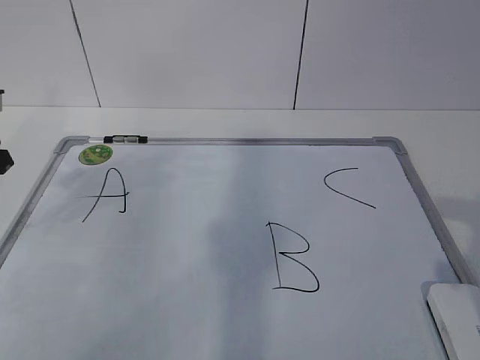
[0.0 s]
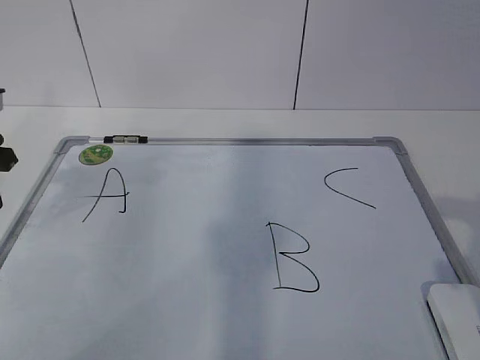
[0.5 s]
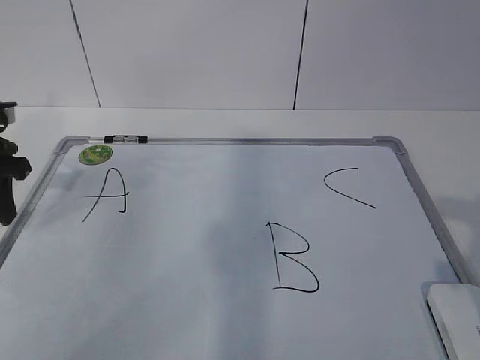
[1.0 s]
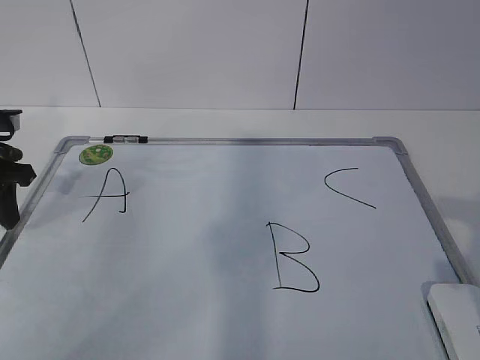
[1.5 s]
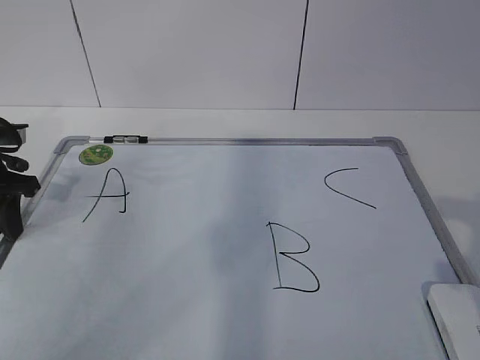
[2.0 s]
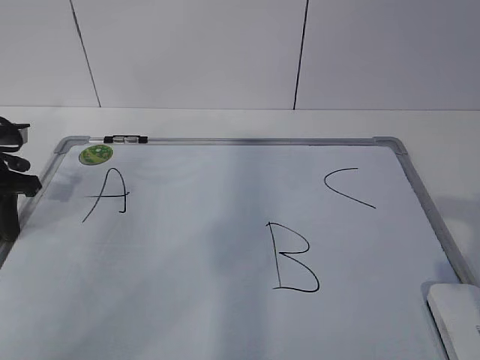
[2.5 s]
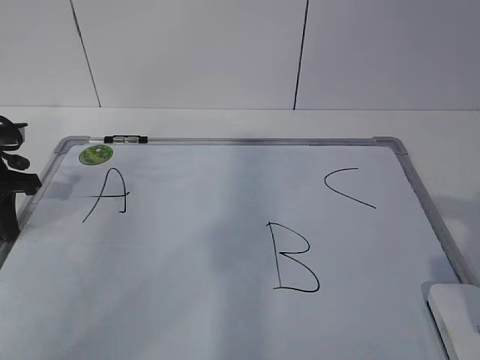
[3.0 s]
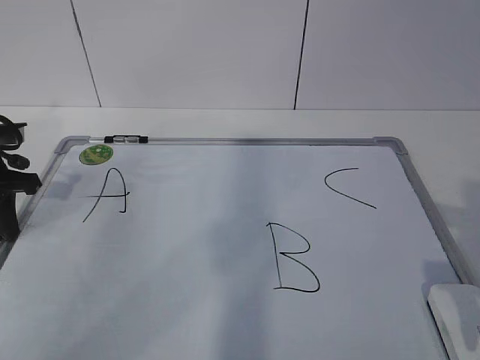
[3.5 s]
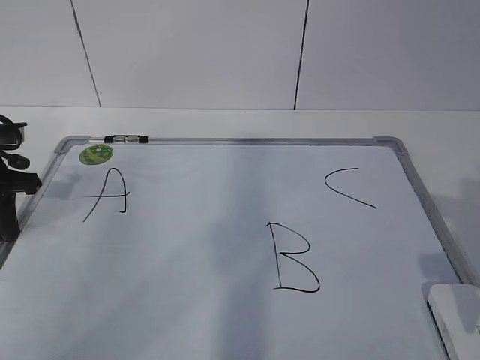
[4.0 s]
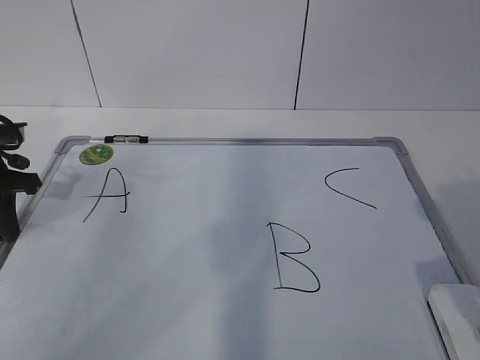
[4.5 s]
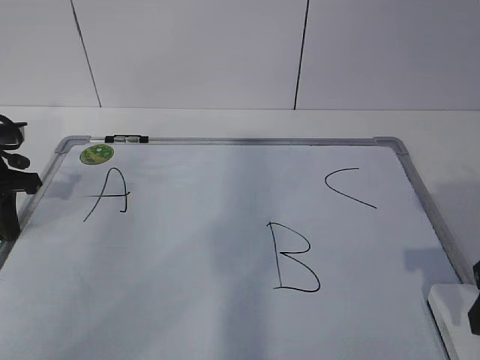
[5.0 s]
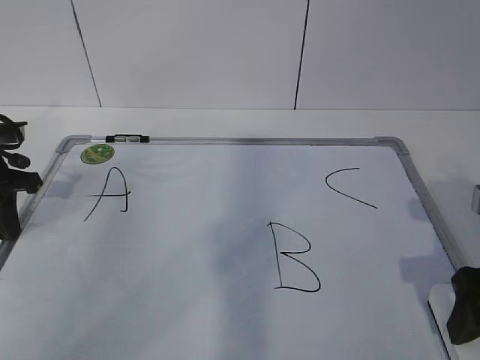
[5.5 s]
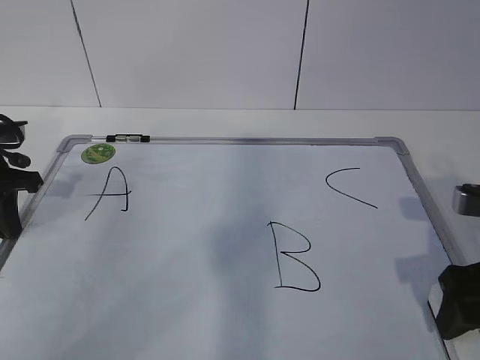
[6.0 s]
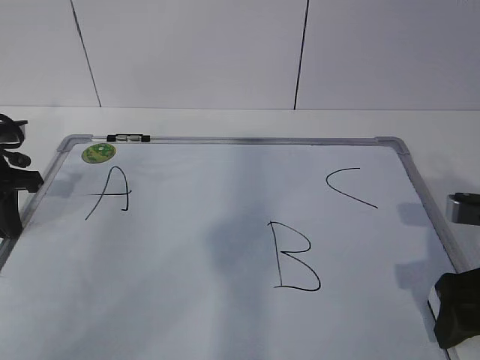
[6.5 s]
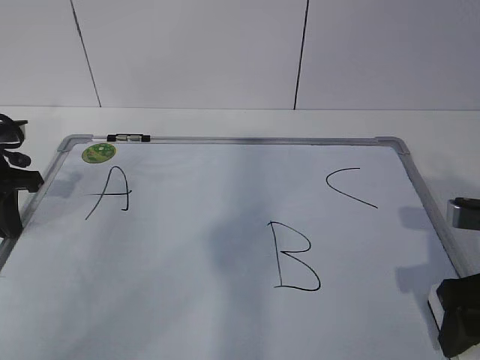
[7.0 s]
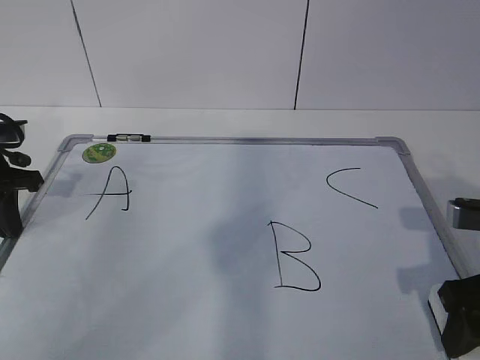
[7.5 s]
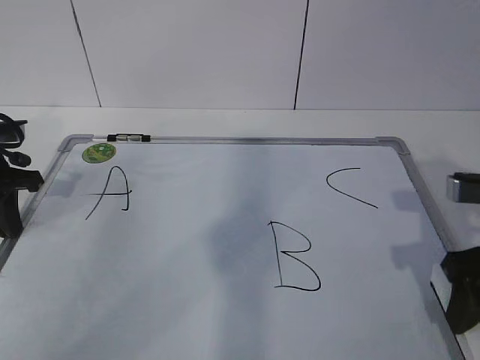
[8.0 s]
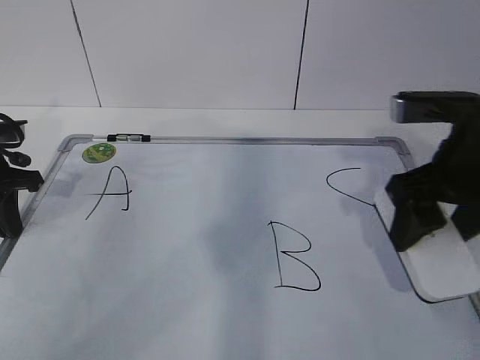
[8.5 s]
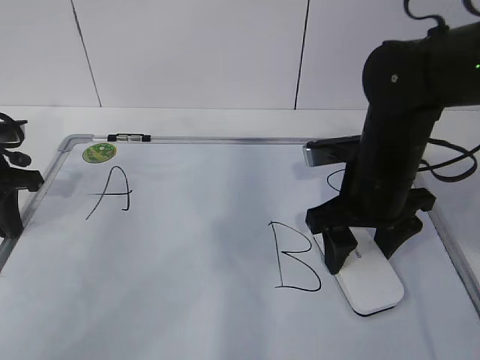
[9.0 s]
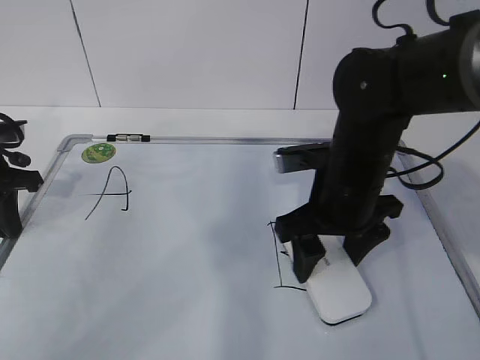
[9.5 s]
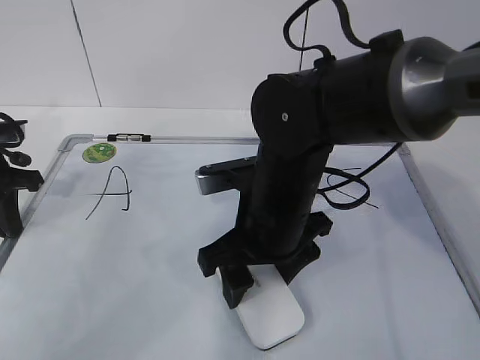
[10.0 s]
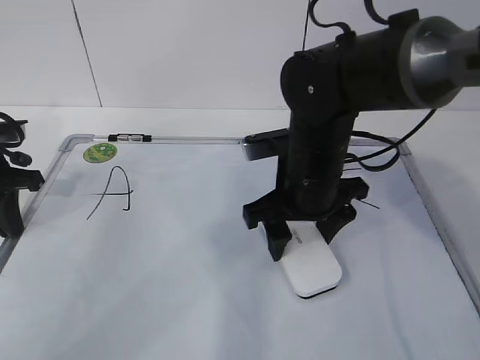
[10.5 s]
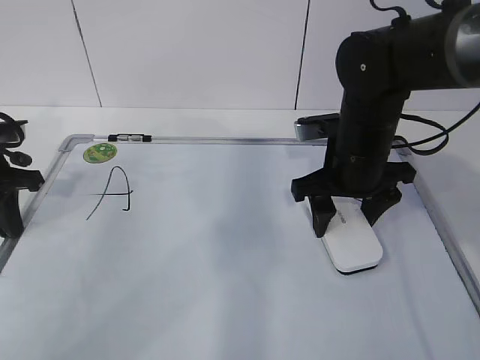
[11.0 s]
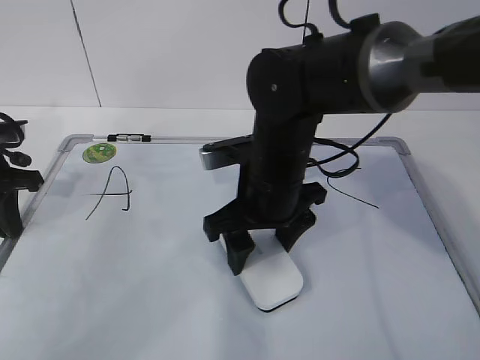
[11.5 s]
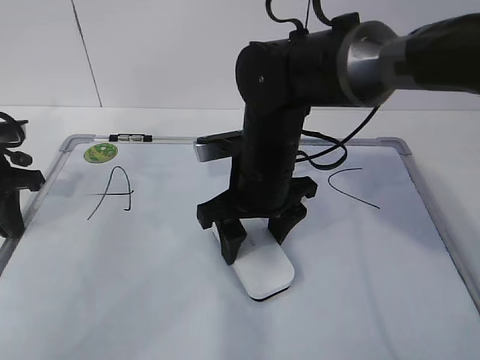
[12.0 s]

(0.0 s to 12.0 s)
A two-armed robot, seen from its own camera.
Task of the whole recording: pick up the eraser on the blackboard and erase the letter "B".
Step, 1.5 s - 5.5 s: Grab the eraser with your right hand.
Step, 6.0 s - 9.5 s: Erase the letter B with your right hand.
0.0 s - 2.0 s: The left gripper travels downward by approximately 5 cm.
2.0 s - 4.0 s: The left gripper closes.
4.0 s - 6.0 s: The right gripper changes place by about 5 cm, and opens up.
6.0 s - 8.0 s: The right gripper closes its fingers.
8.0 s - 10.0 s: The right gripper moves to the left, some 20 cm.
10.0 s - 12.0 s: The right gripper heads forward, covering about 5 cm, and moves some 10 cm to the right and comes back.

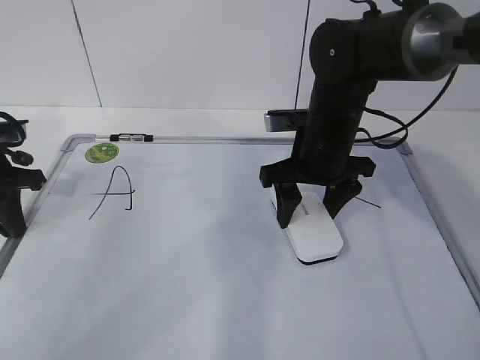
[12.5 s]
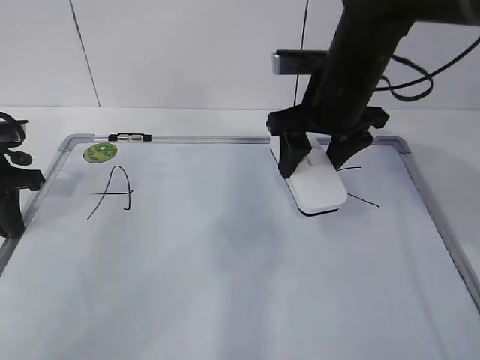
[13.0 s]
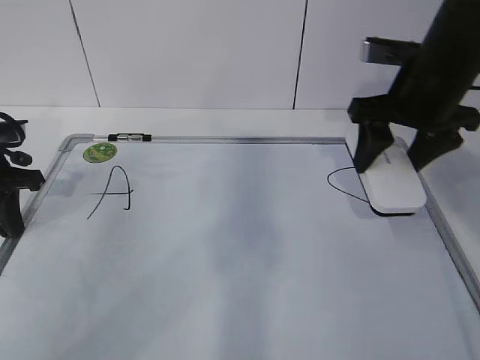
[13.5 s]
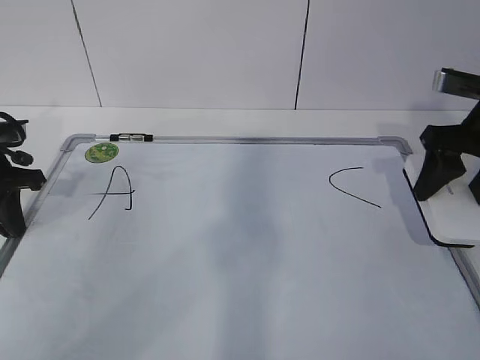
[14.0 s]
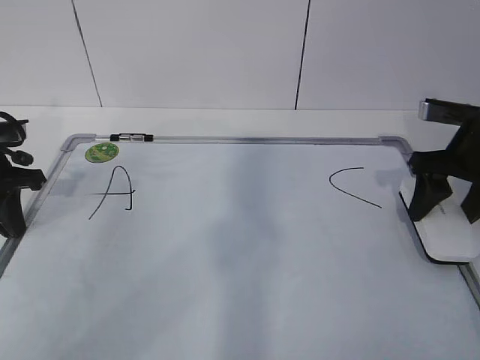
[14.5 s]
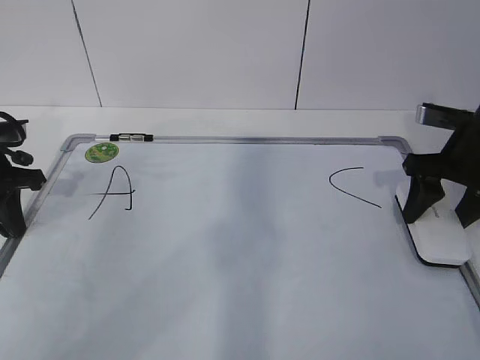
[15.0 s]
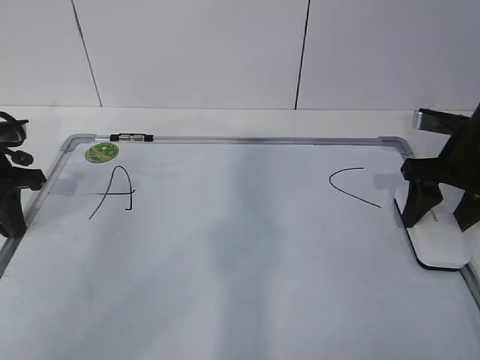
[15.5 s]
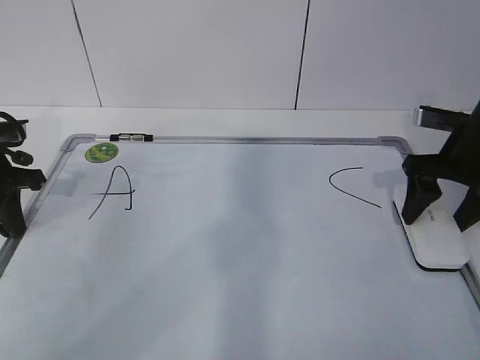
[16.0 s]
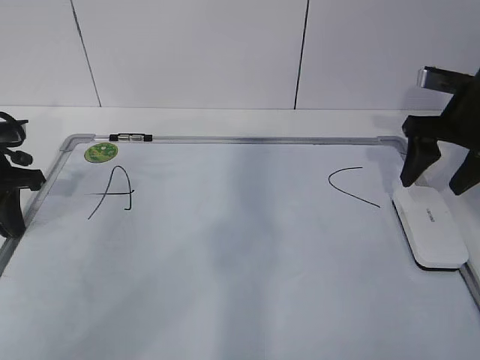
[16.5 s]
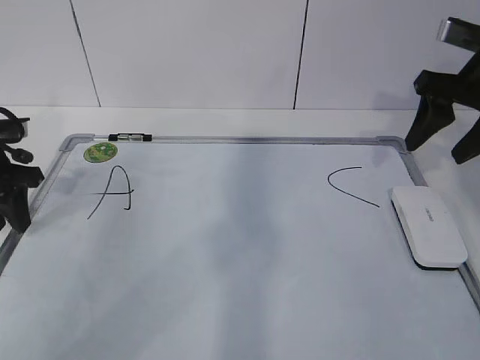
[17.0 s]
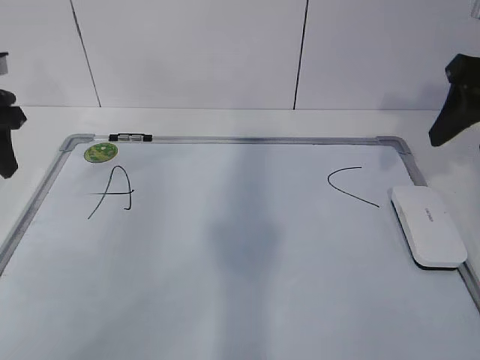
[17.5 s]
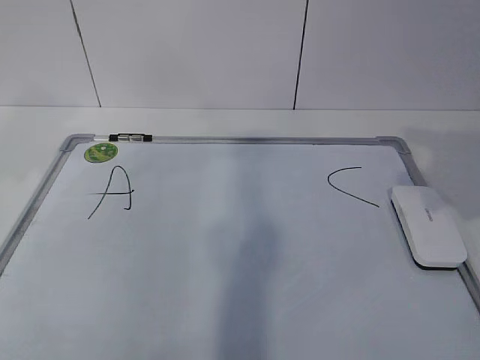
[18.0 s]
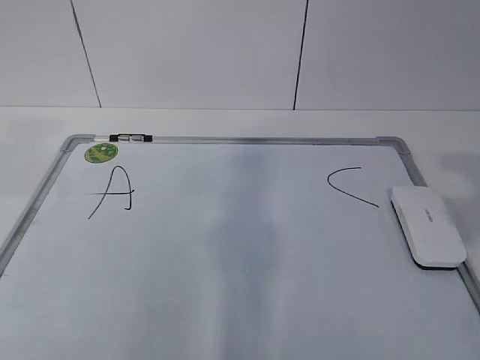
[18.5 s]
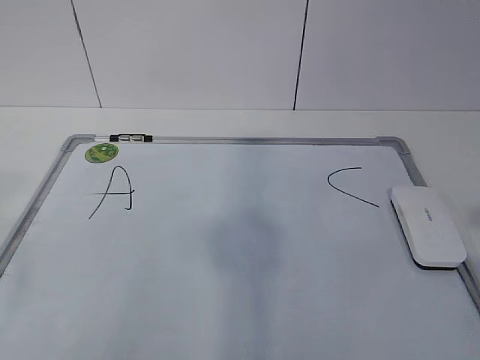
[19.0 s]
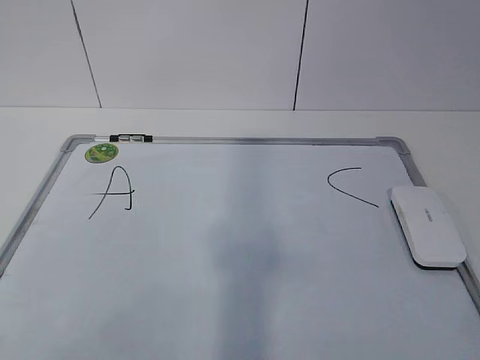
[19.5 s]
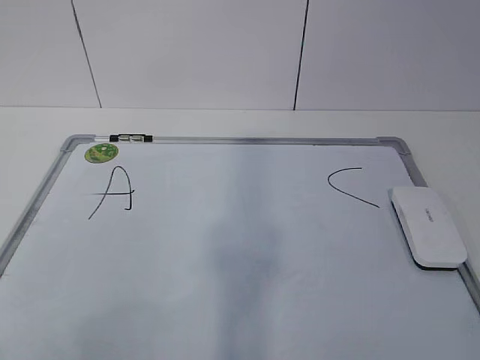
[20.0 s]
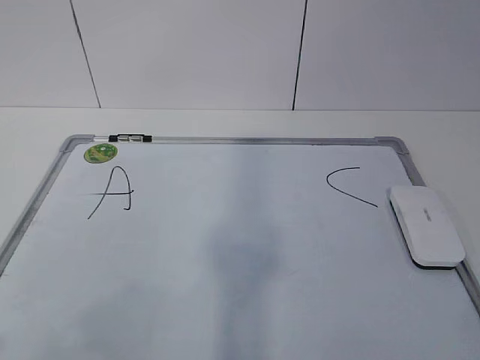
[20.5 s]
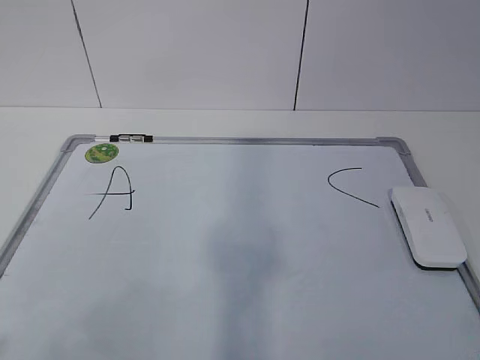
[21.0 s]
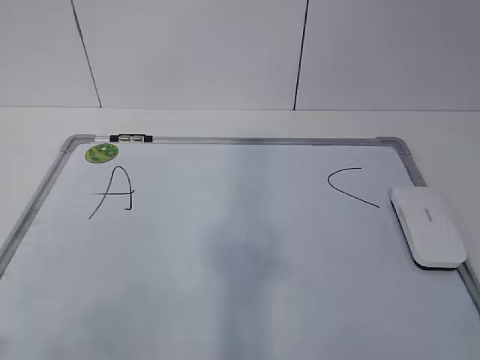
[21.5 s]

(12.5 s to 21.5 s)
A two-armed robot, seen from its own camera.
Task of the whole recording: pick up the eraser on the blackboard and erase the letter "B".
12.5 s - 14.5 s: The right gripper is displaced to the right by some 15 cm.
14.5 s - 17.0 s: The right gripper moves upward, about 10 cm, and opens and closes again, while the left gripper opens up.
17.0 s - 19.5 s: Both grippers travel together backward, about 40 cm.
